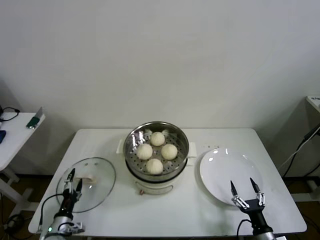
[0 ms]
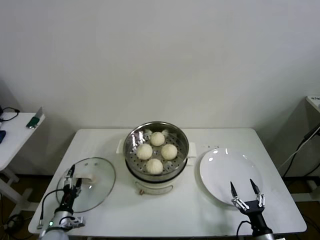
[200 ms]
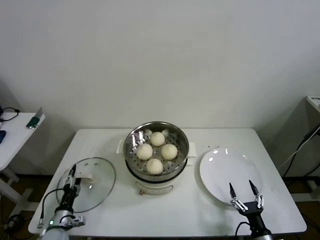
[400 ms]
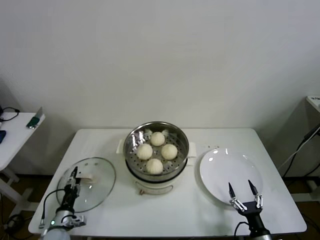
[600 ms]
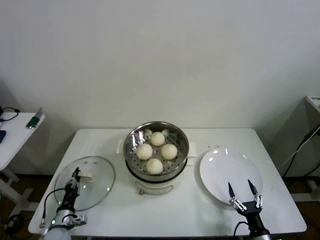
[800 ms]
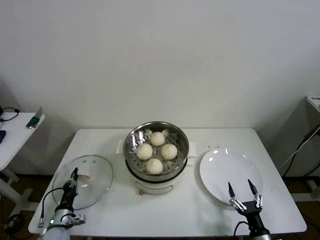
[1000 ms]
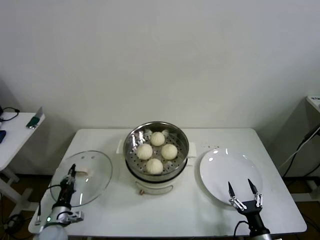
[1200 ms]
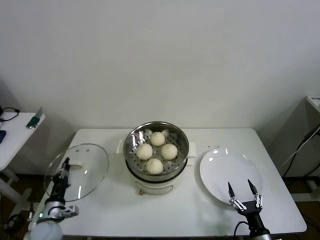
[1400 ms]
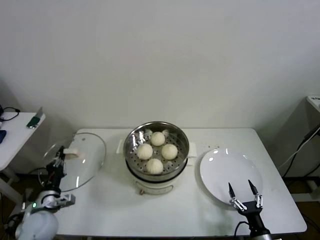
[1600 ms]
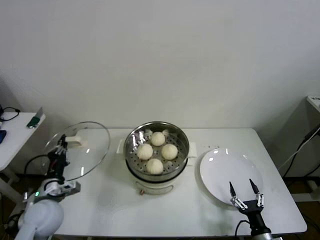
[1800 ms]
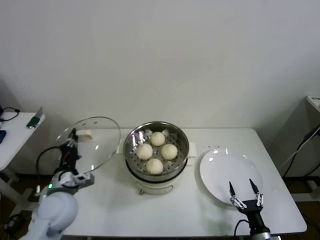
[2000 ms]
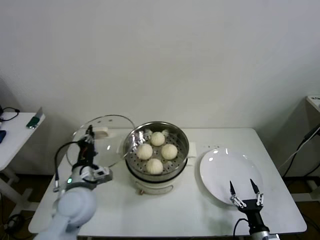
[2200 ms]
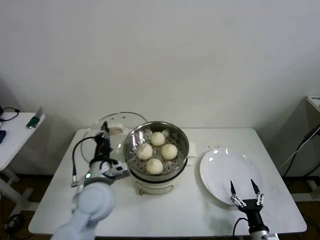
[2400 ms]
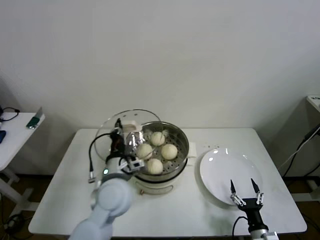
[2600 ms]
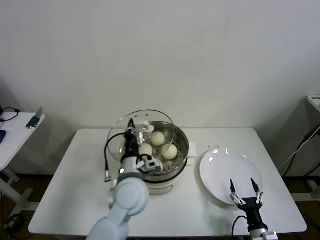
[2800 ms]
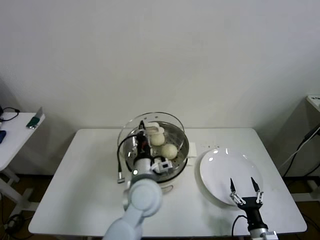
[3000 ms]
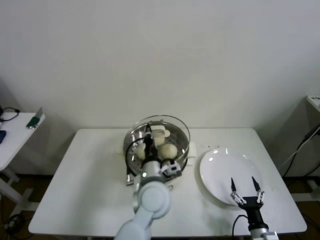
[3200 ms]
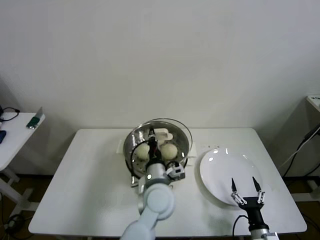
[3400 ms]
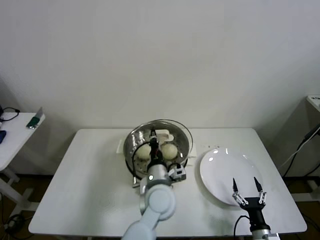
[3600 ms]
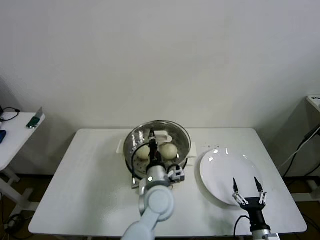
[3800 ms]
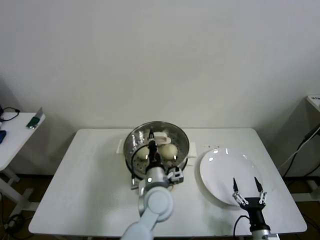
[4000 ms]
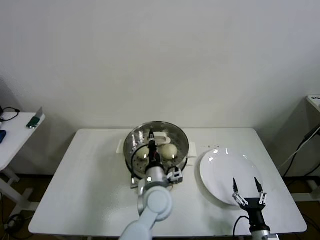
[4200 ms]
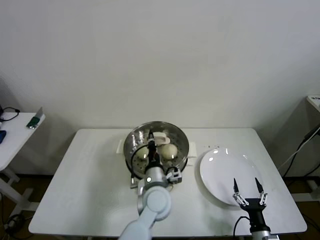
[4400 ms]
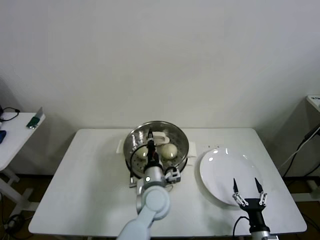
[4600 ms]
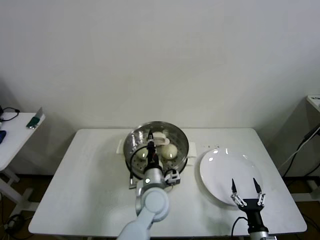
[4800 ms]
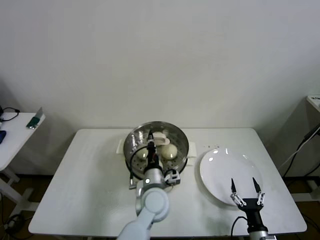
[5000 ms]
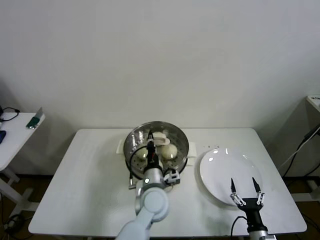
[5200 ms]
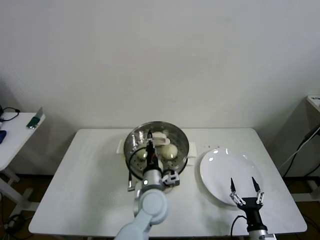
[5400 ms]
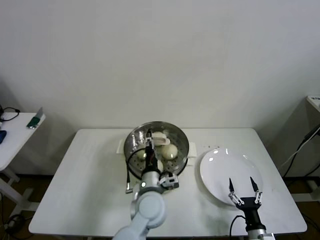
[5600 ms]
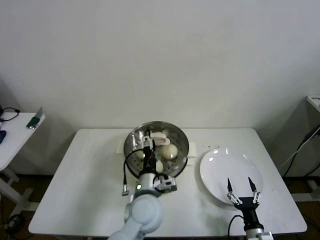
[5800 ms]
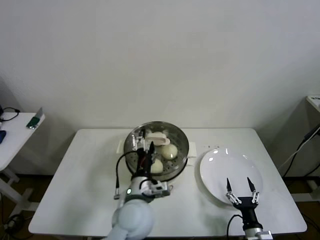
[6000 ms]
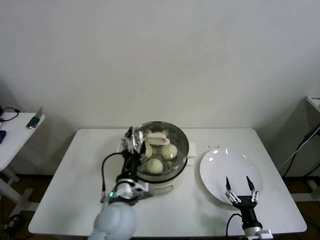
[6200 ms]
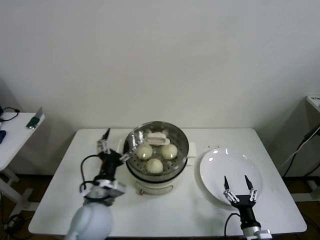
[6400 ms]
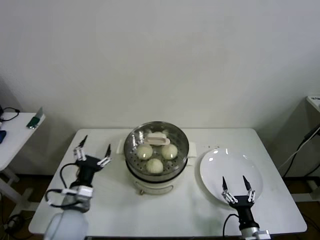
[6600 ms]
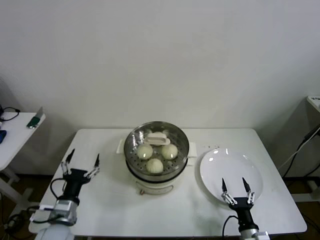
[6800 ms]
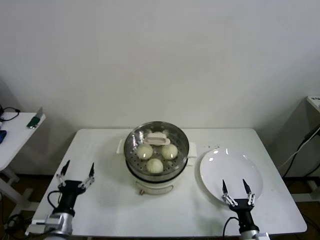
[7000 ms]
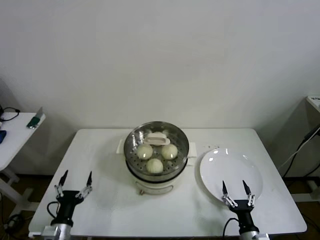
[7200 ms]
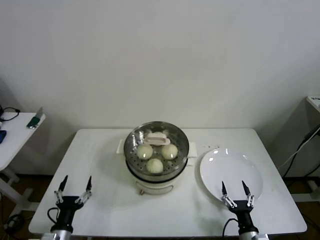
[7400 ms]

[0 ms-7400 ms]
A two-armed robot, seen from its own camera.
Step, 1200 ms to 6000 ms: Place the pot lid on the steamer with left gripper.
0 ms to 1400 ms: The left gripper shifts by approximately 5 cm, and closes.
1400 ms to 3000 ms: The left gripper is displaced to the right and upward by some 40 cm.
3000 ms to 4400 ms: The left gripper moves downward, approximately 5 cm.
4400 ms to 6000 ms: The left gripper shifts by some 10 cm, and opens up.
6000 ms to 7400 ms: The left gripper shifts about 30 cm to the left, downward and backward.
